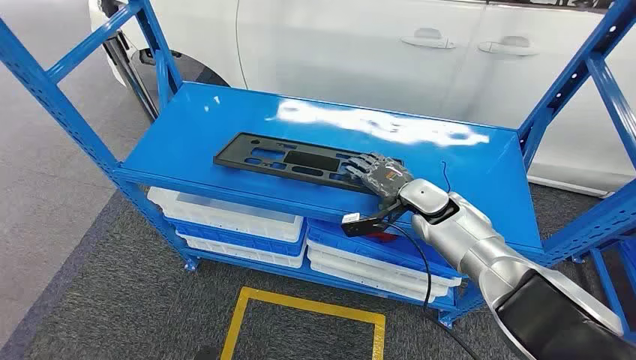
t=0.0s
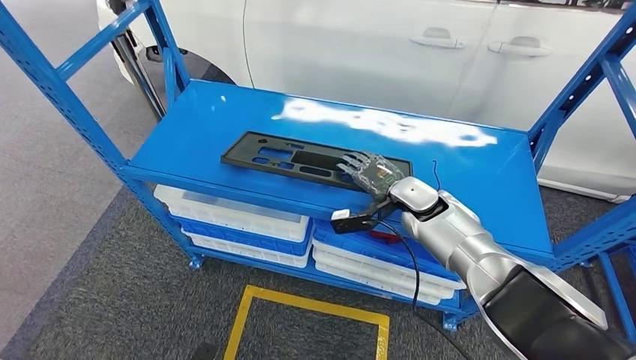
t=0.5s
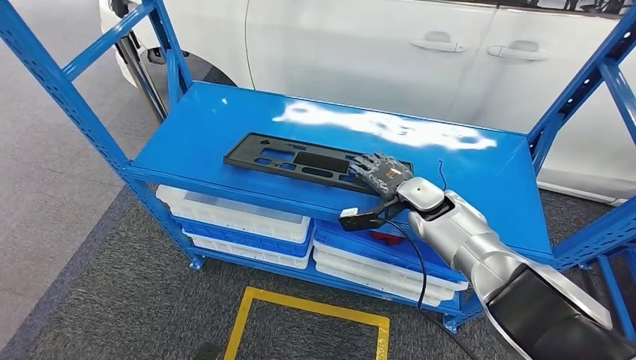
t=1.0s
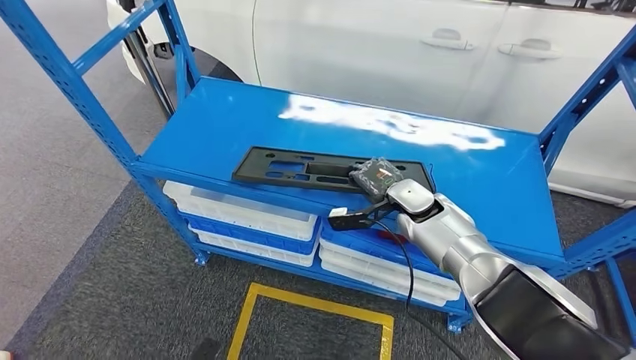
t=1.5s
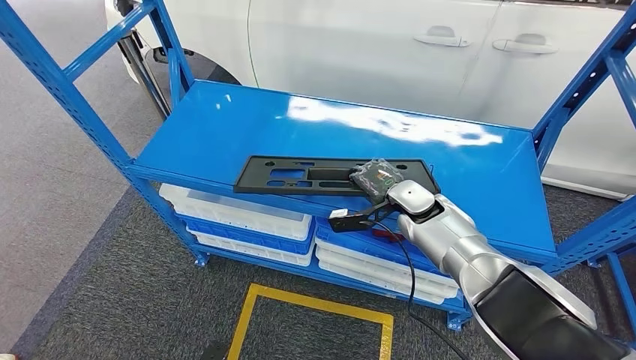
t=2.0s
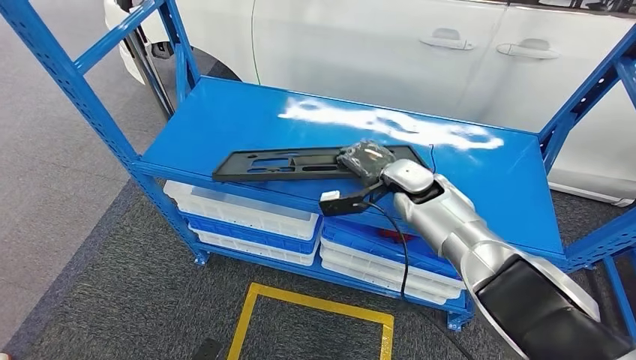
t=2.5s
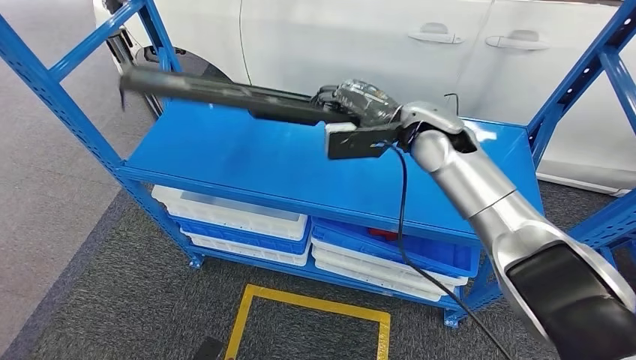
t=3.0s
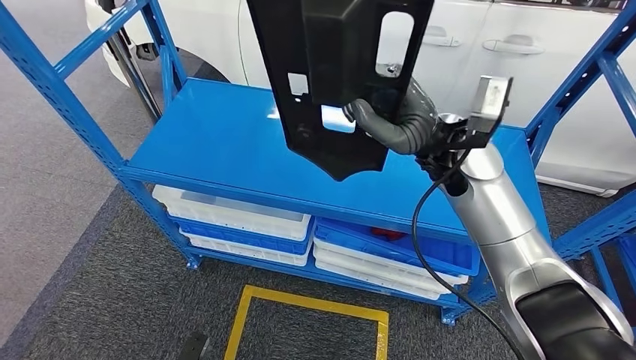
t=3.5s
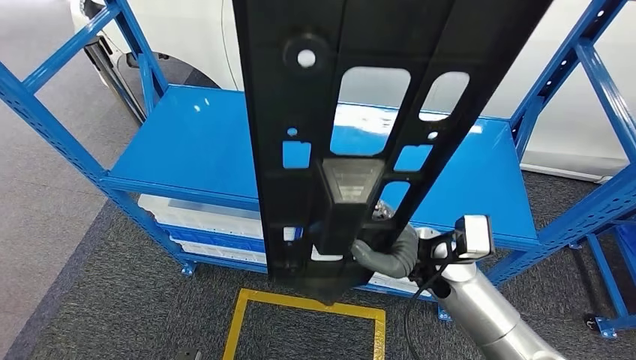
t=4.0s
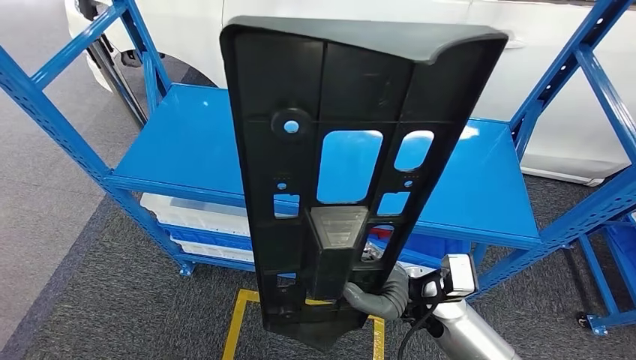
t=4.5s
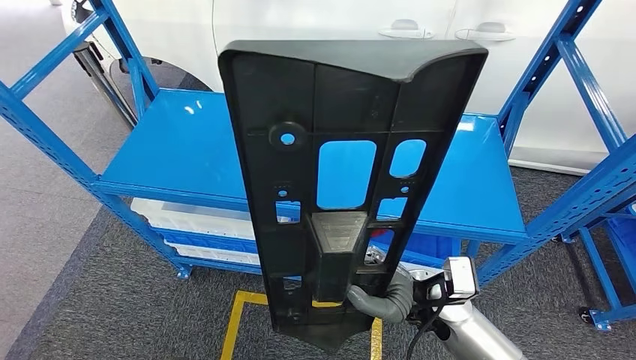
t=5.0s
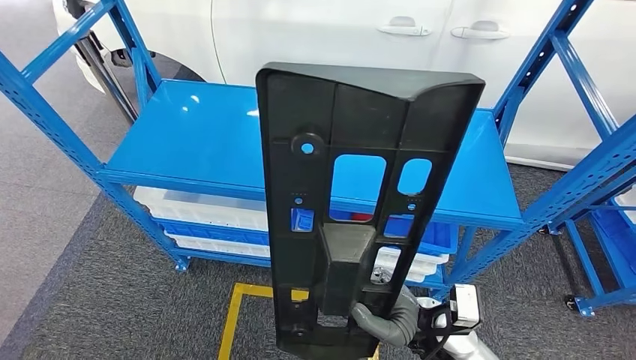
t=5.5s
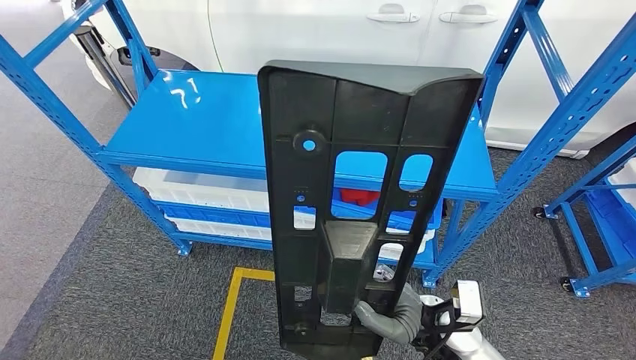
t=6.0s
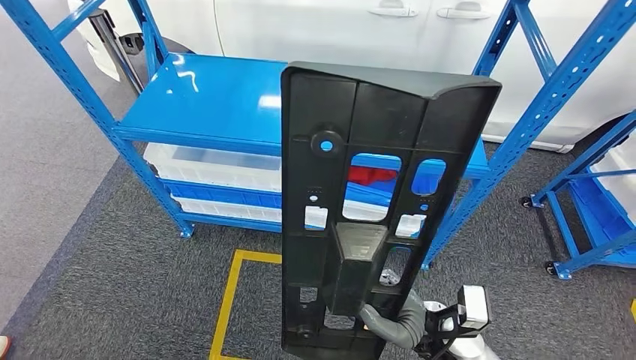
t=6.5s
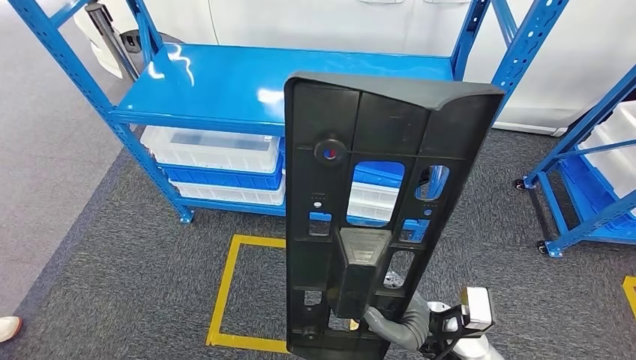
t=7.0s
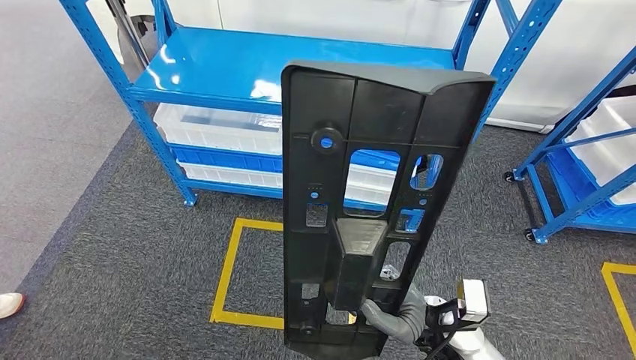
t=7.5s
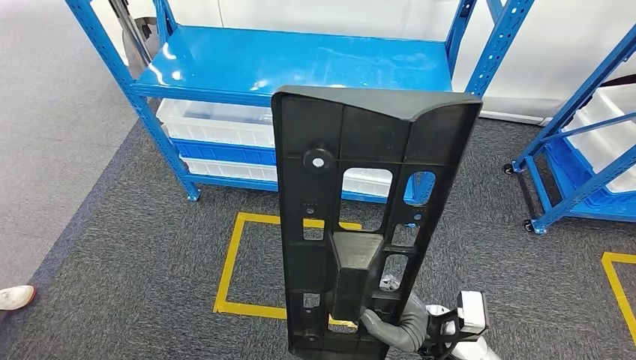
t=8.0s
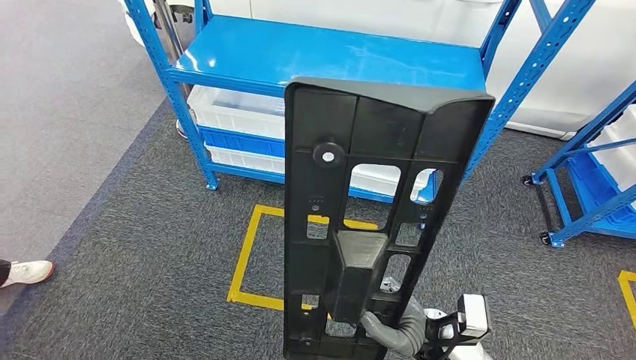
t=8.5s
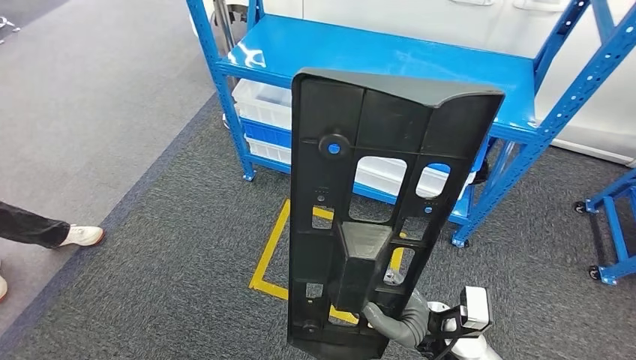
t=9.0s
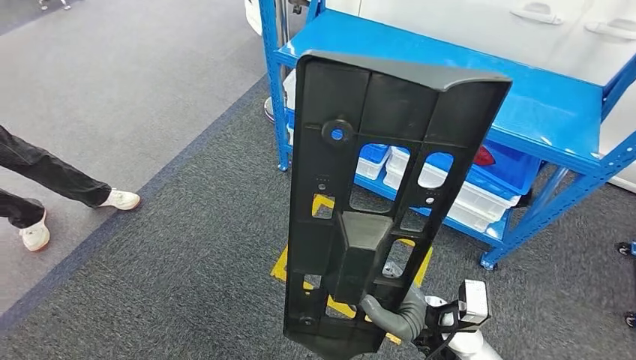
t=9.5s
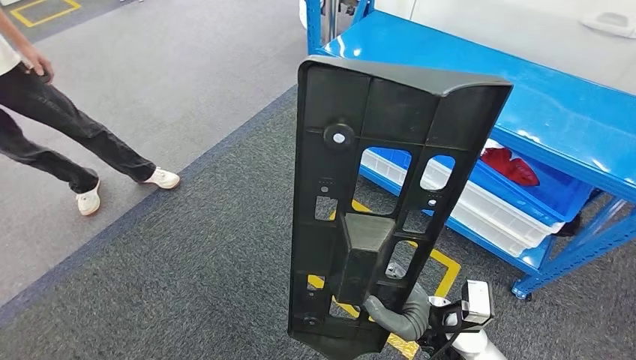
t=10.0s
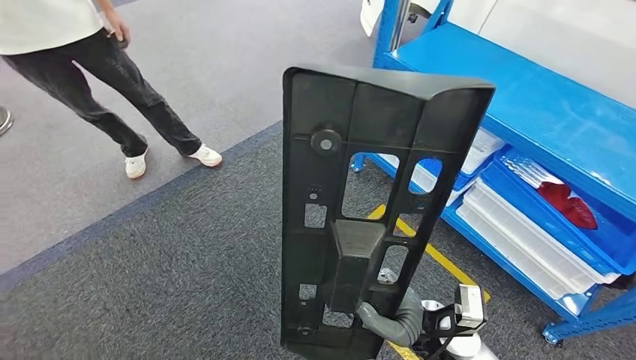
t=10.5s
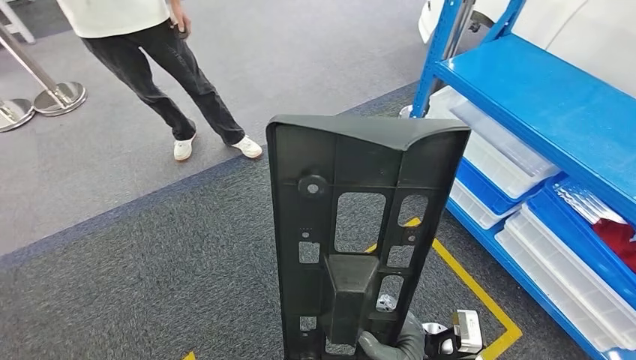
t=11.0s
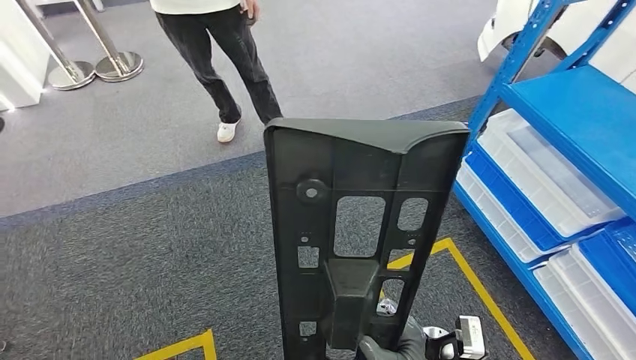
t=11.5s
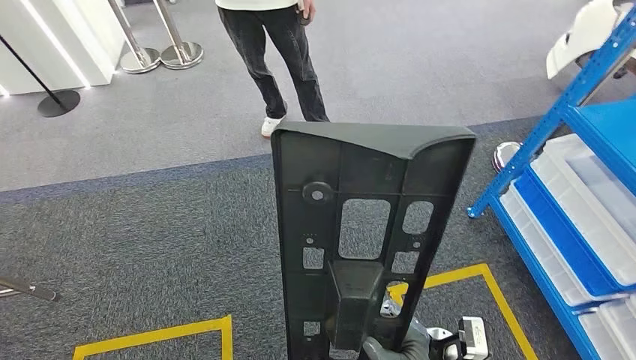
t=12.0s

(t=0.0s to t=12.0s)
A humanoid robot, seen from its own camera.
Step, t=0.0s - t=4.0s: Pick up the large material from the shelf.

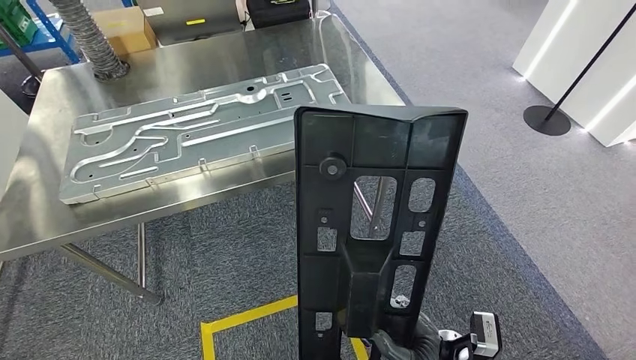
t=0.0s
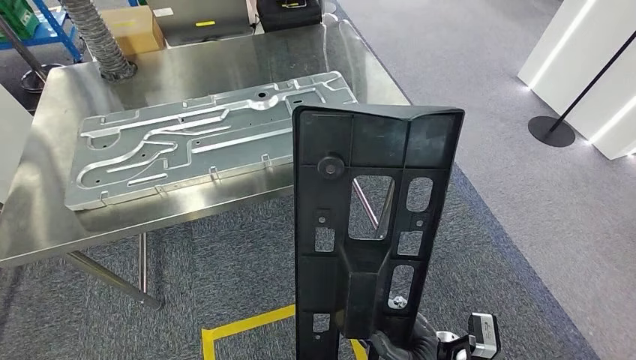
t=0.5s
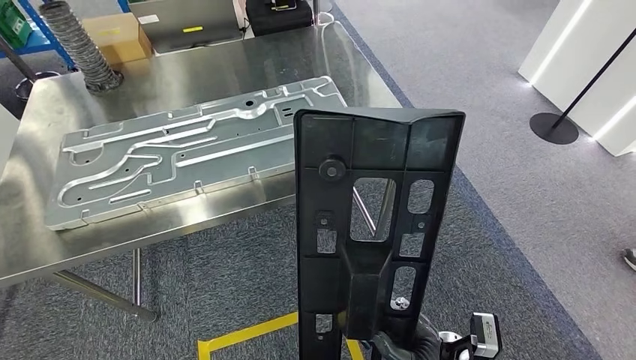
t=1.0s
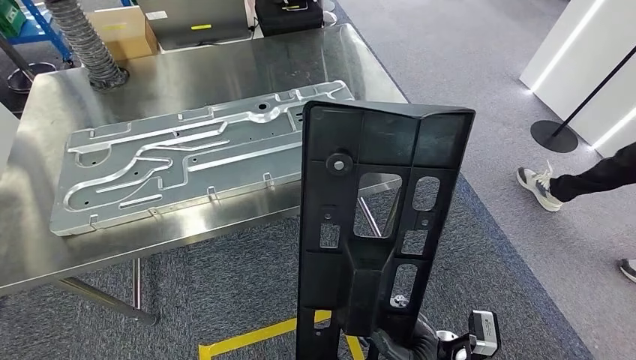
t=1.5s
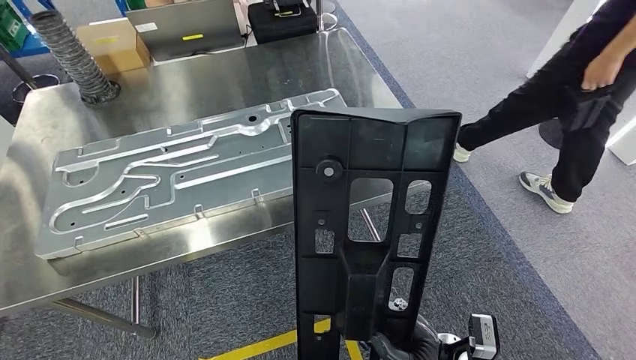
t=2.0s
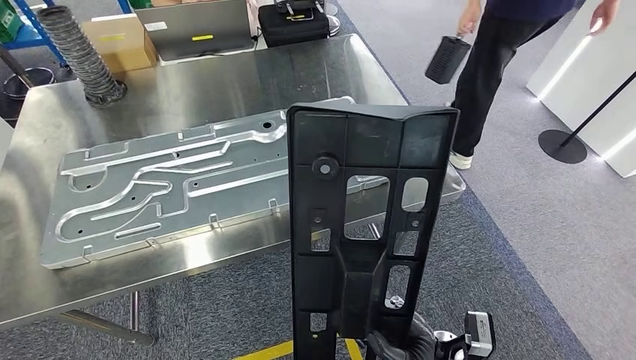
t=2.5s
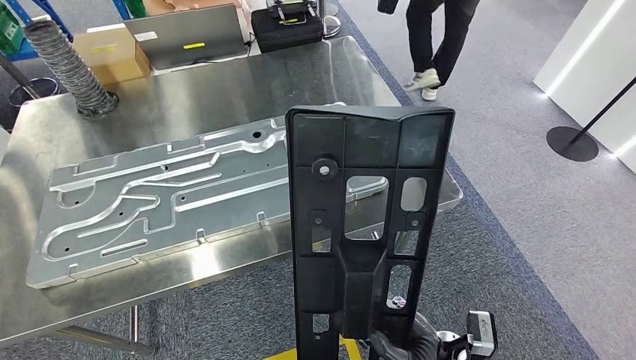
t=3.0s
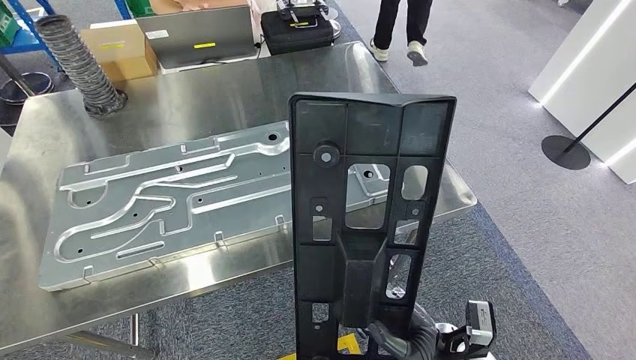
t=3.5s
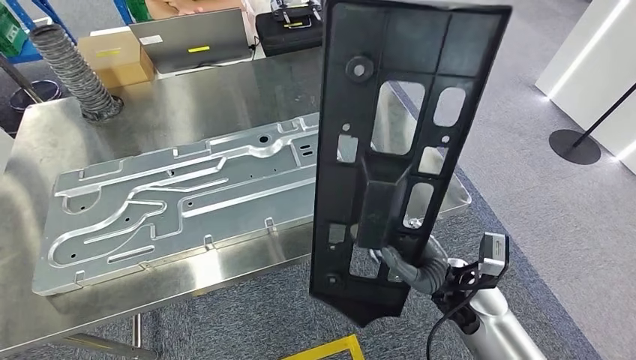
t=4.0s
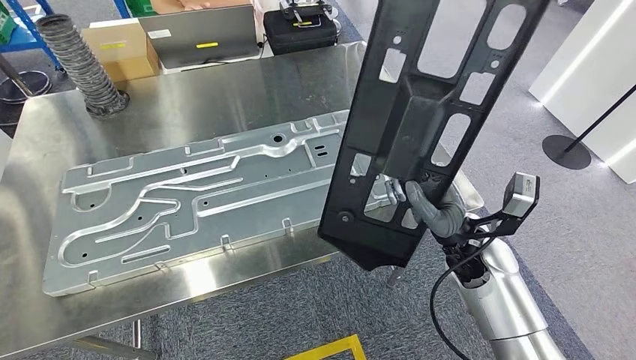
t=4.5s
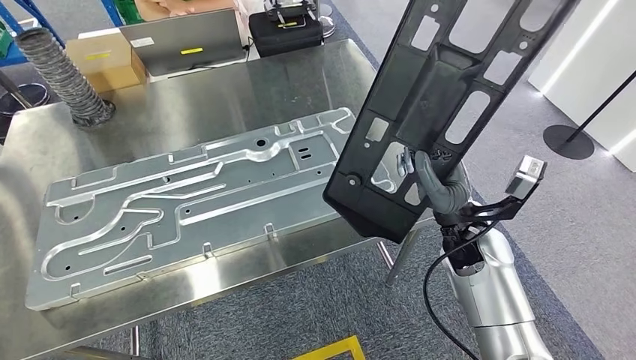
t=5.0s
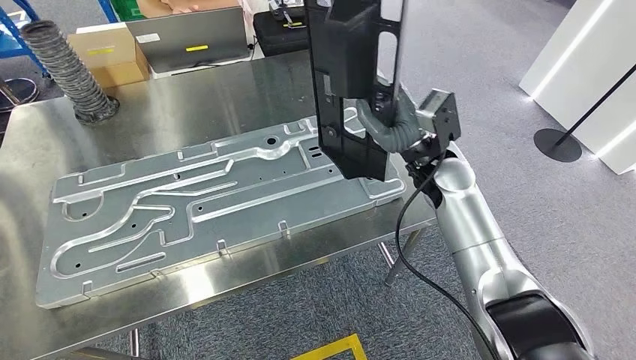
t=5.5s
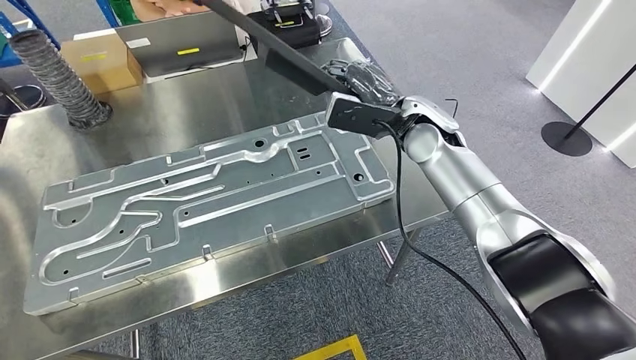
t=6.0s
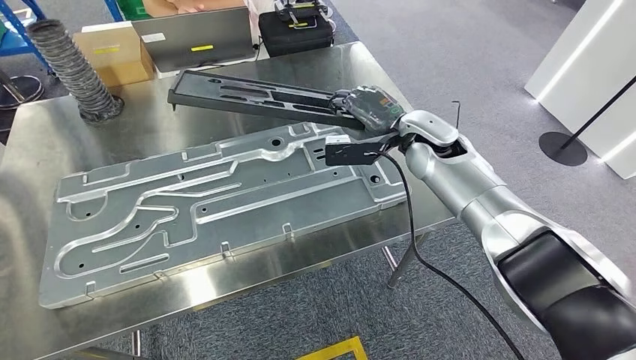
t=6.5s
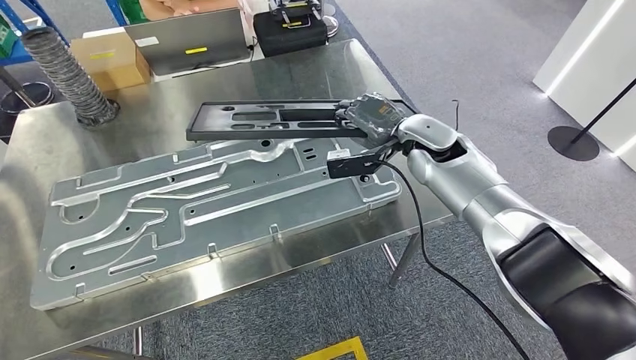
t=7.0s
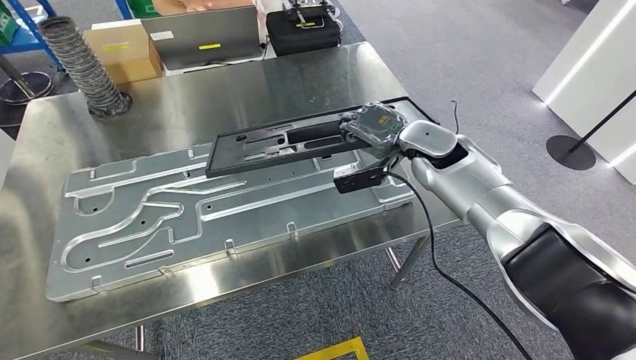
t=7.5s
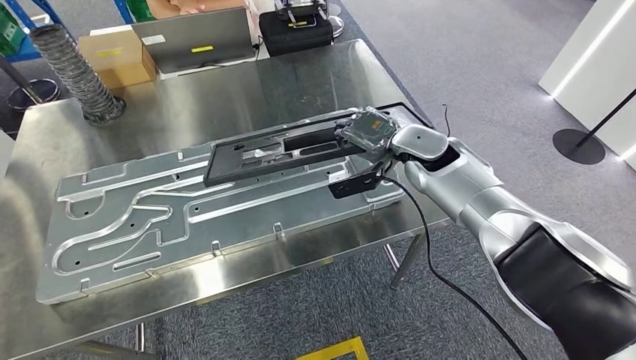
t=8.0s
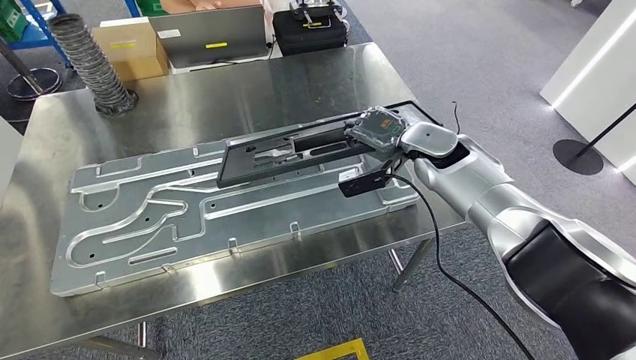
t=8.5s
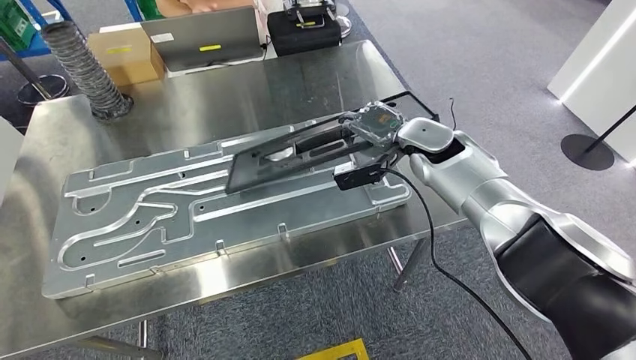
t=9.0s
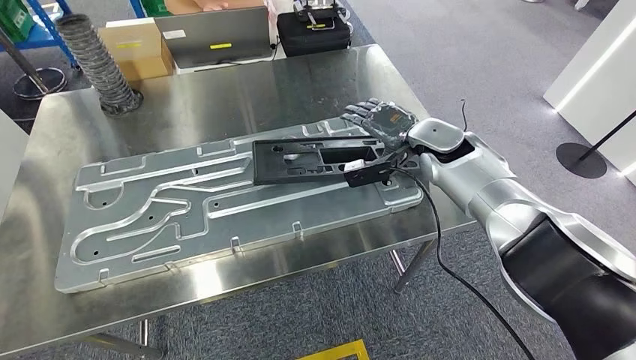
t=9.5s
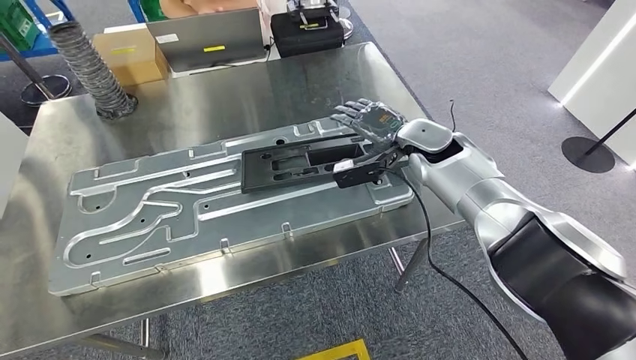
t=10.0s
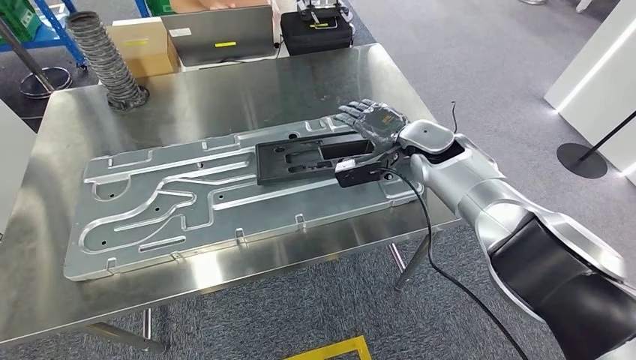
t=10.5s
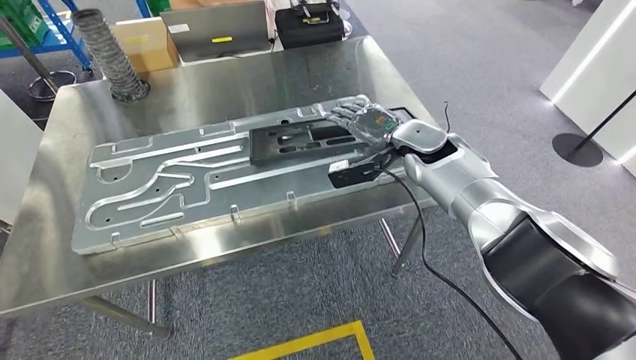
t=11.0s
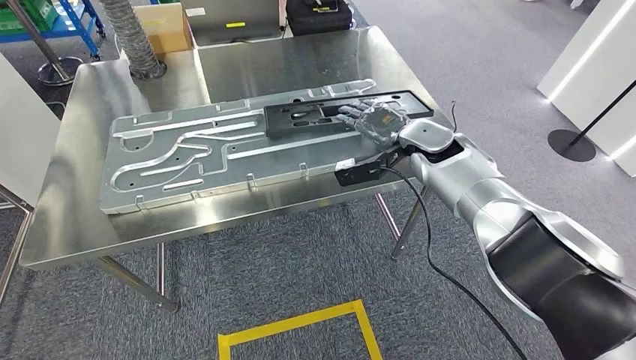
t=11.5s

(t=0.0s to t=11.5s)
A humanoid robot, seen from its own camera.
Step, t=0.0s - t=2.0s: Move the large material to the workbench.
Step, t=5.0s - t=10.0s: Insert the large material into the corresponding slot on the workbench.
